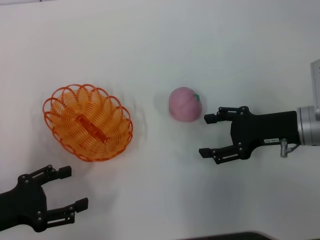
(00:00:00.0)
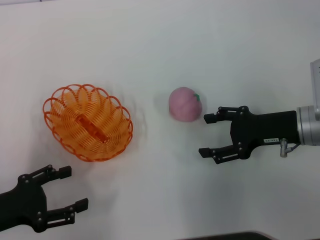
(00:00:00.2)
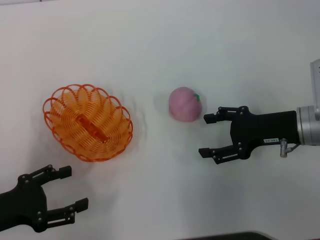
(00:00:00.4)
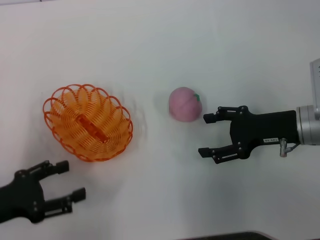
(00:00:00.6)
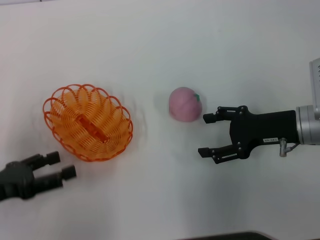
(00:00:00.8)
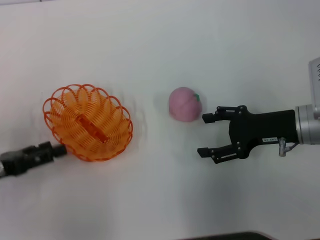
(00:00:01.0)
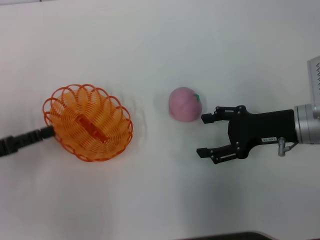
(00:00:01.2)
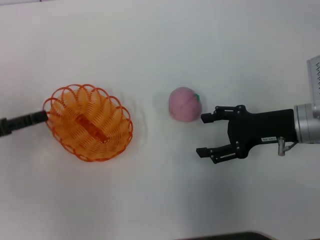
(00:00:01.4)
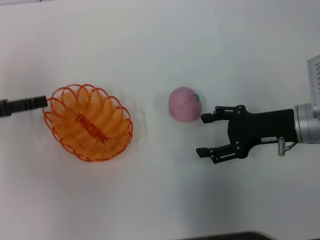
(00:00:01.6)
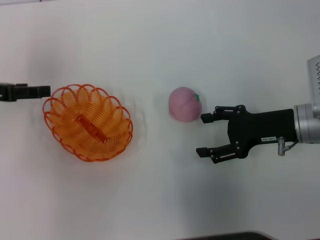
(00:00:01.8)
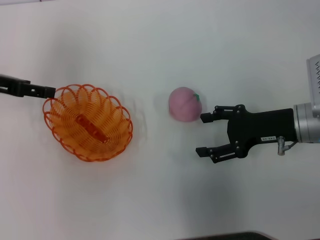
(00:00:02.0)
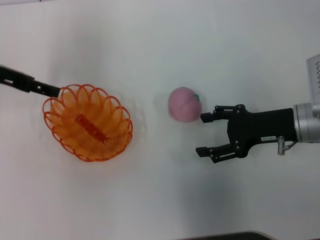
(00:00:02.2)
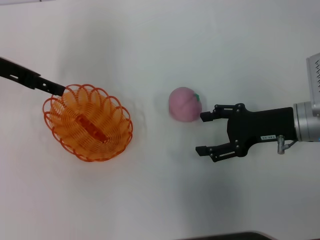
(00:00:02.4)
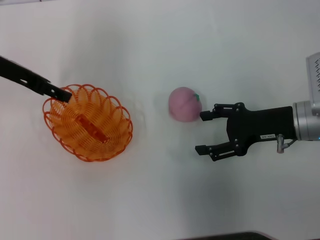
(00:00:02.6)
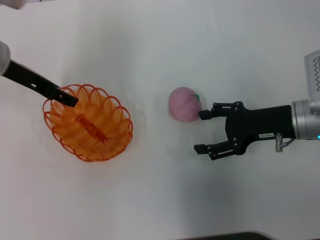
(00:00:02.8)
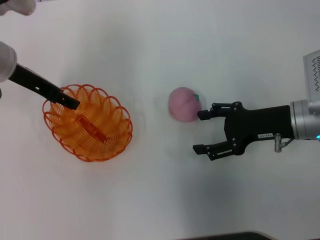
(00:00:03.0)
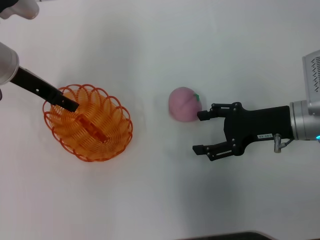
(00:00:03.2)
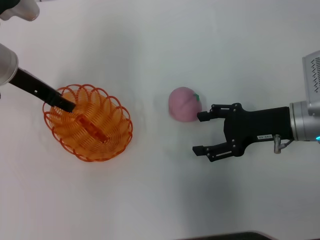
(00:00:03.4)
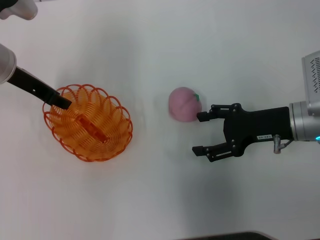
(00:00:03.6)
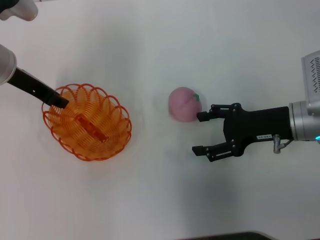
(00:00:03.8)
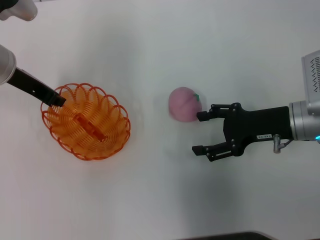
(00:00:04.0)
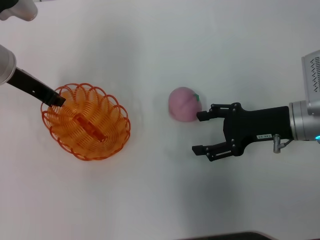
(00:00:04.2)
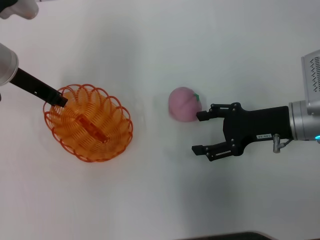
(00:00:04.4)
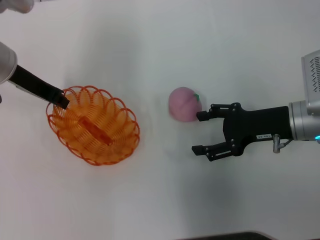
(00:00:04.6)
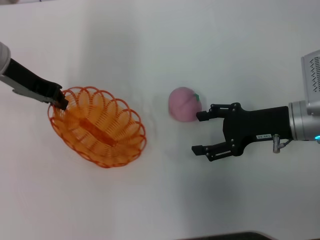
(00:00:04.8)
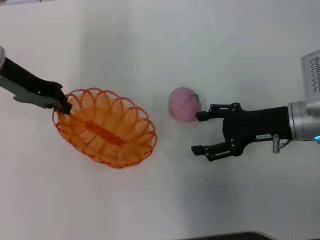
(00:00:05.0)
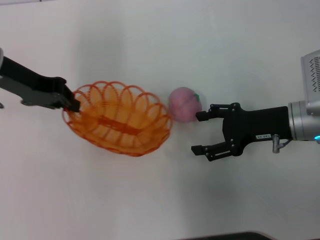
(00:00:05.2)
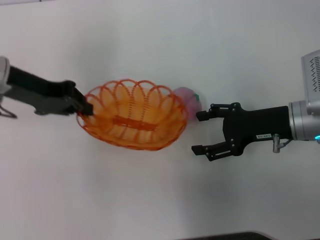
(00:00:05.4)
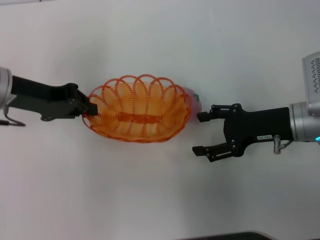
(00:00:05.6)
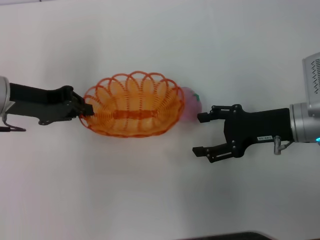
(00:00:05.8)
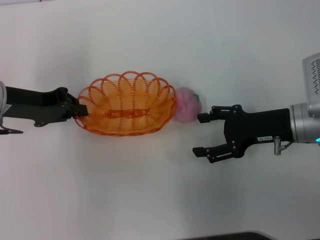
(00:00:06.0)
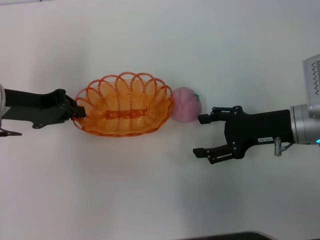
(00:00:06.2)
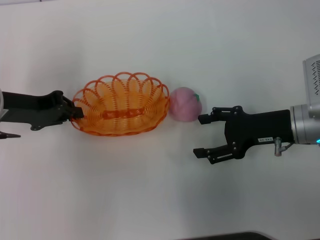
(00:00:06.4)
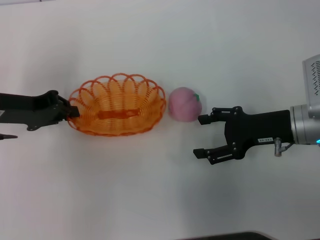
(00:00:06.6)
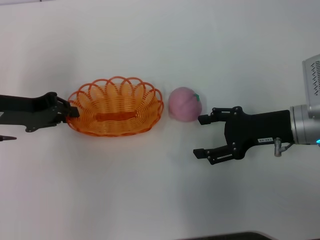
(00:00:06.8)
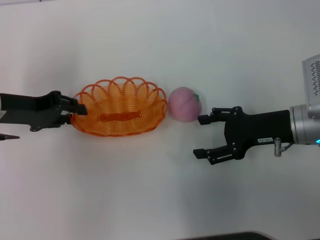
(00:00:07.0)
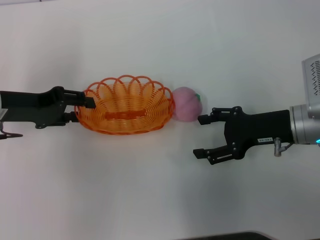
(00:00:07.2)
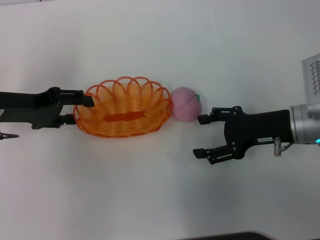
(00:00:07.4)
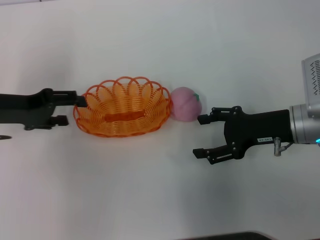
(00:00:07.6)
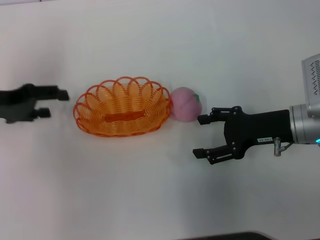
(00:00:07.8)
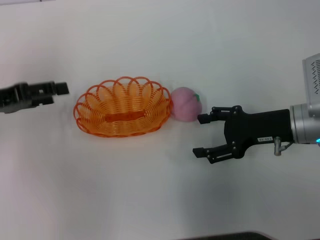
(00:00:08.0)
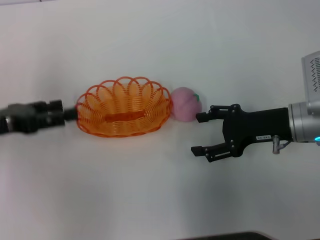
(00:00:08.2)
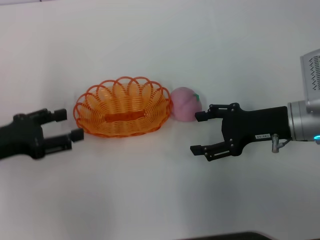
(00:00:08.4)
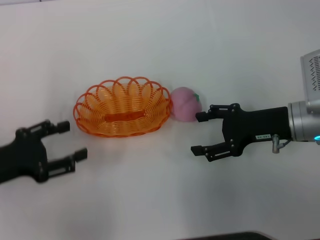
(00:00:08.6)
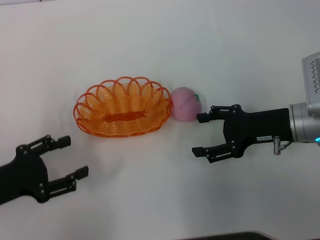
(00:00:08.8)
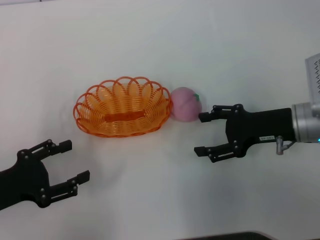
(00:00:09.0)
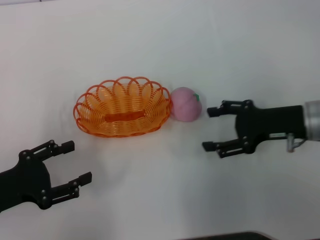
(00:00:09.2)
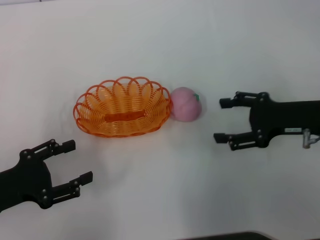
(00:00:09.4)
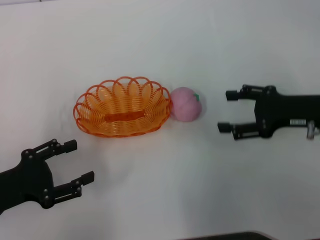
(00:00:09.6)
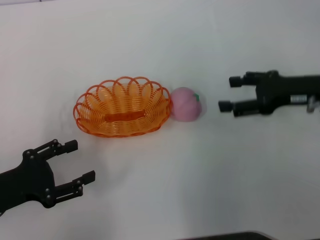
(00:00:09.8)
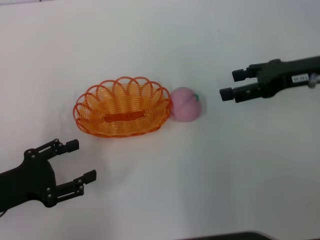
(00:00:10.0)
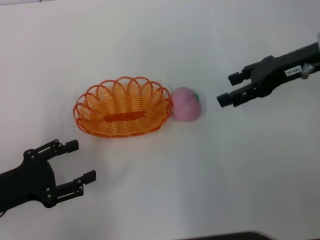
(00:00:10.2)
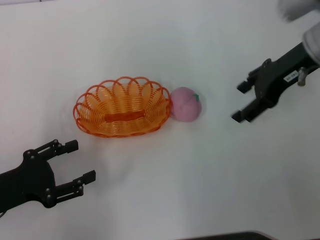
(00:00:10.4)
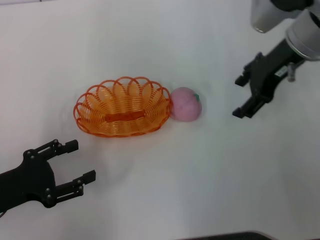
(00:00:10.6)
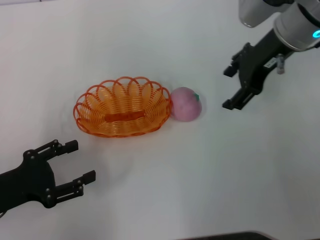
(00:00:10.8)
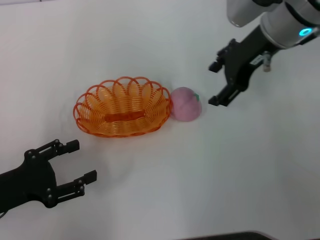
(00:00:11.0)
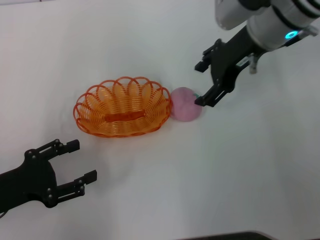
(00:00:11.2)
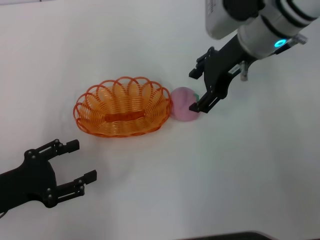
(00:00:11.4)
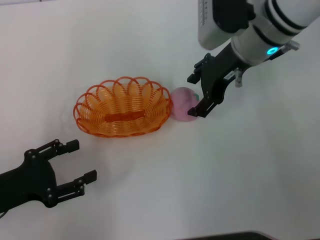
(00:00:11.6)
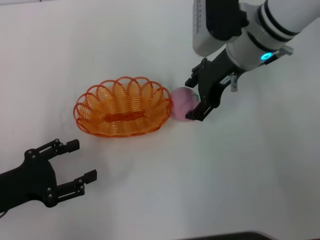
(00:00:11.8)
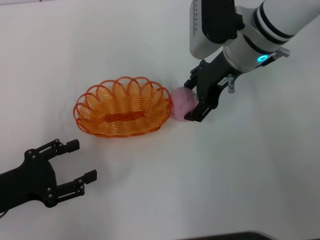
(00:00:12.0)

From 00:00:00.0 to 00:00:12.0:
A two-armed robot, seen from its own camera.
Step, from 00:00:00.0 to 00:00:04.8: Pick up the basket with the left gripper.
Step, from 00:00:05.0 to 00:00:08.8: Place the basket in the center of view with the left gripper.
From 00:00:00.0 to 00:00:01.6: The left gripper goes about 15 cm forward and upward.
From 00:00:01.6 to 00:00:03.0: The left gripper moves to the right and forward, roughly 15 cm.
From 00:00:03.0 to 00:00:04.4: The left gripper closes its fingers.
From 00:00:04.4 to 00:00:06.0: The left gripper goes approximately 5 cm backward.
From 00:00:06.0 to 00:00:07.6: The left gripper opens.
From 00:00:07.6 to 00:00:09.0: The left gripper goes approximately 15 cm backward and downward.
From 00:00:09.0 to 00:00:10.4: The right gripper is displaced upward and forward by approximately 15 cm.
From 00:00:10.4 to 00:00:12.0: The right gripper goes roughly 10 cm to the left.

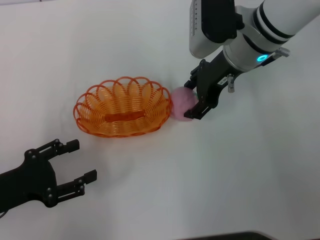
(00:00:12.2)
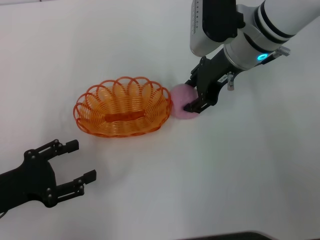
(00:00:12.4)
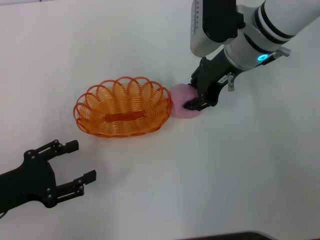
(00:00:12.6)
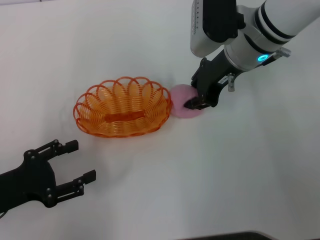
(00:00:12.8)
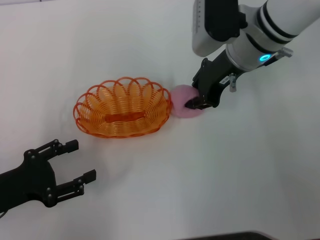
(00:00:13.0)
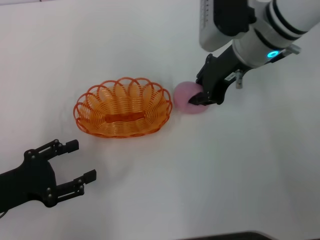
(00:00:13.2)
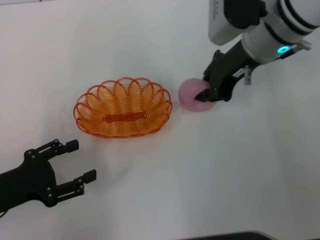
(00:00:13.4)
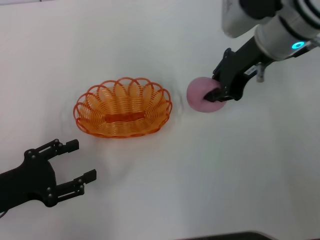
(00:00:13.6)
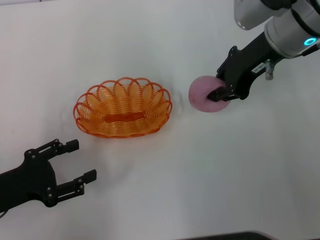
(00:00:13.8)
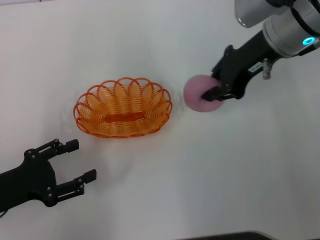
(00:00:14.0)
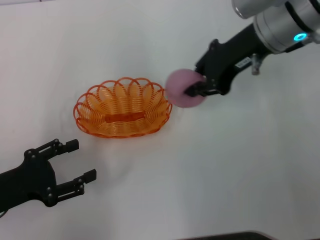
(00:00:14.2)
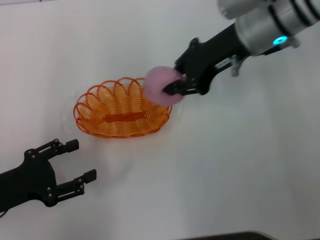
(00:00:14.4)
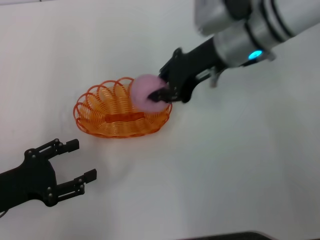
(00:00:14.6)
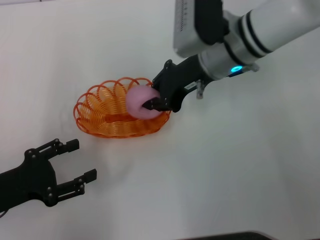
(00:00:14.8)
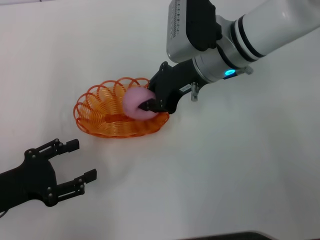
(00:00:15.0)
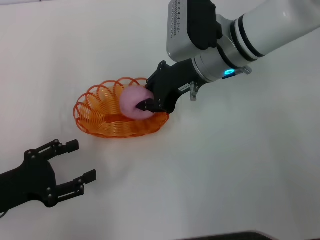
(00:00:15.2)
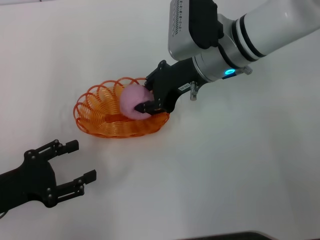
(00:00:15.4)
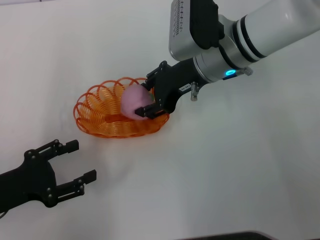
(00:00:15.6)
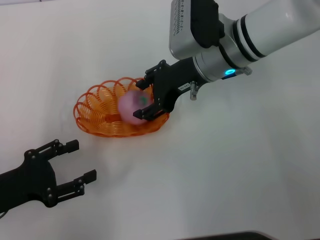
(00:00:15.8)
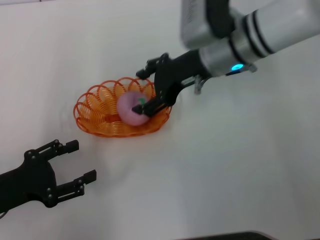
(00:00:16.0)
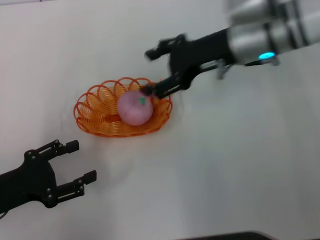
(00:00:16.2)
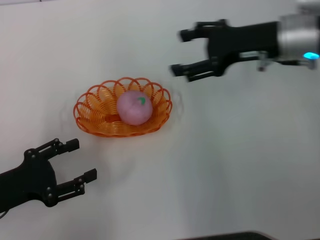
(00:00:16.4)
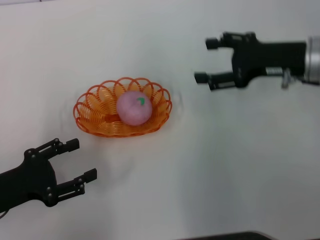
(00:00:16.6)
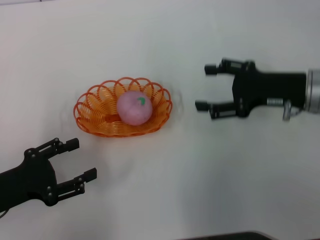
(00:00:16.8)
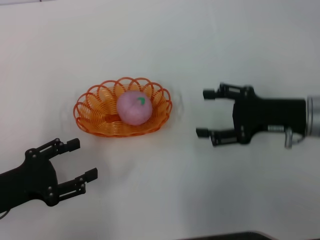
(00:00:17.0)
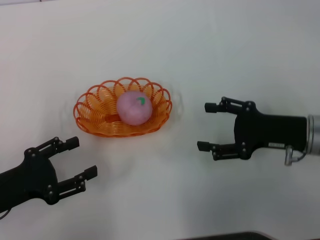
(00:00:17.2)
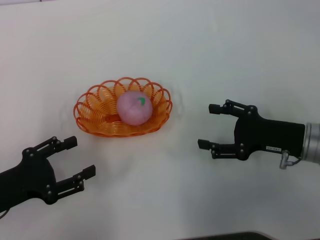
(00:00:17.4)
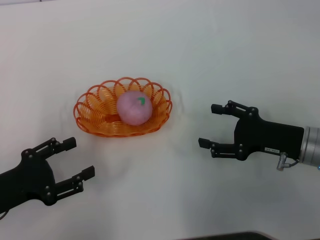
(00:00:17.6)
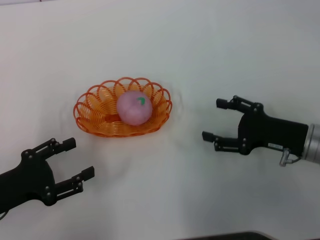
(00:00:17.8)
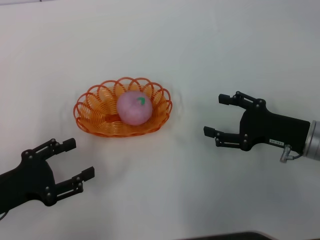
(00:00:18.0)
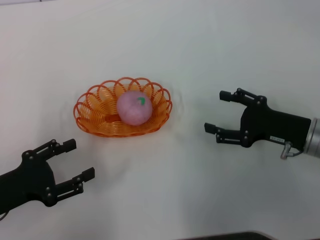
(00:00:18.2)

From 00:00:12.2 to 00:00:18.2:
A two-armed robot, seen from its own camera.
Step, from 00:00:14.0 to 00:00:16.6: Place the peach into the basket with the right gripper.
From 00:00:12.2 to 00:00:13.8: The right gripper changes place by roughly 5 cm, and closes its fingers.
From 00:00:13.8 to 00:00:15.2: The right gripper is displaced to the left and downward by about 10 cm.
From 00:00:15.2 to 00:00:16.6: The right gripper is displaced to the right by roughly 15 cm, and opens up.
From 00:00:16.6 to 00:00:18.2: The right gripper moves downward and backward, roughly 10 cm.
